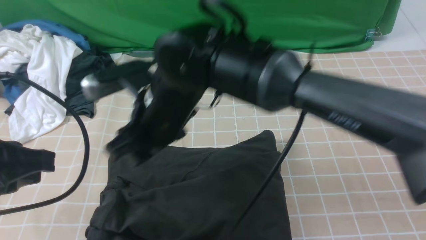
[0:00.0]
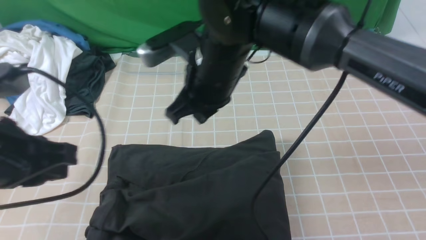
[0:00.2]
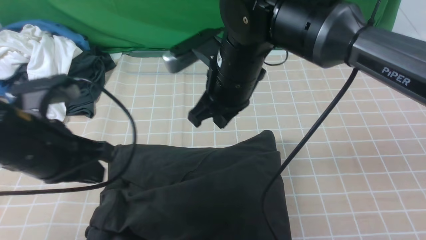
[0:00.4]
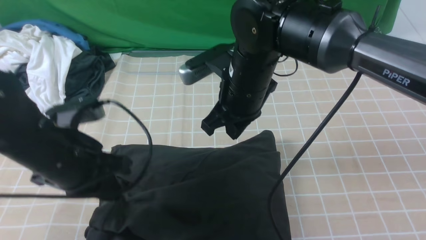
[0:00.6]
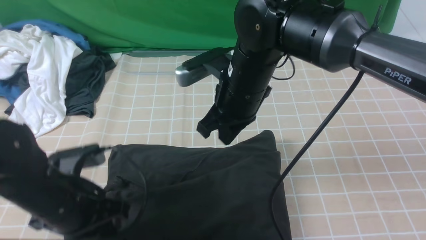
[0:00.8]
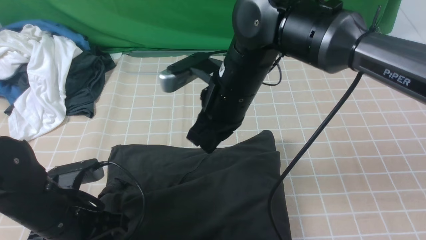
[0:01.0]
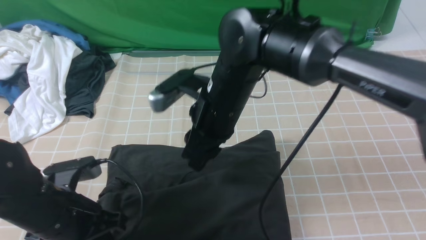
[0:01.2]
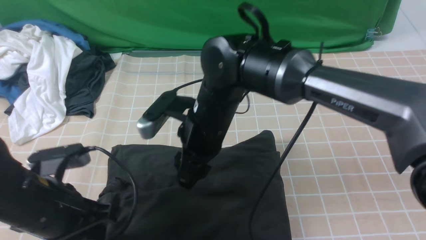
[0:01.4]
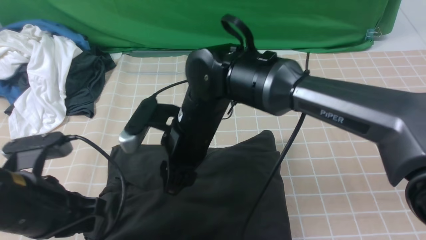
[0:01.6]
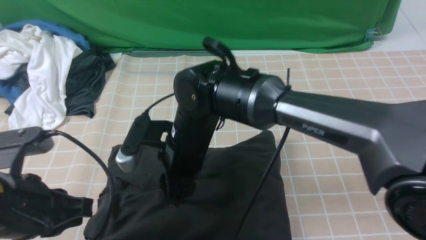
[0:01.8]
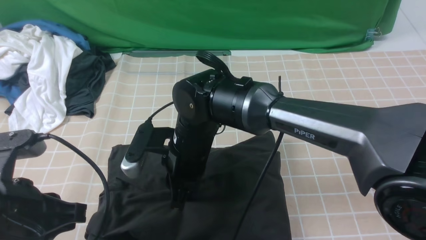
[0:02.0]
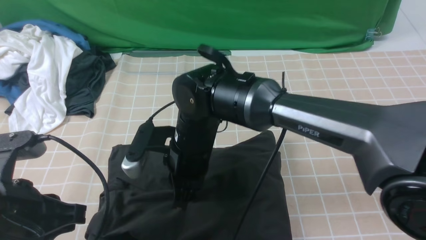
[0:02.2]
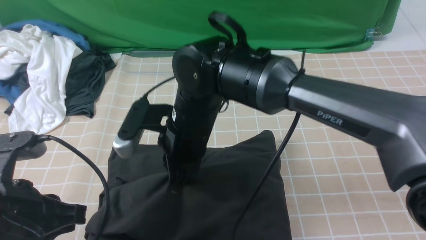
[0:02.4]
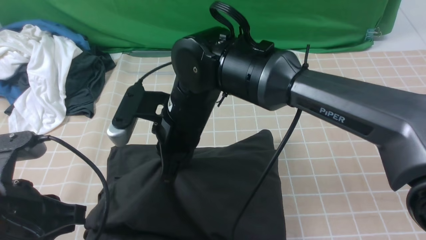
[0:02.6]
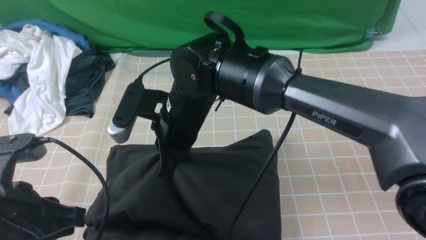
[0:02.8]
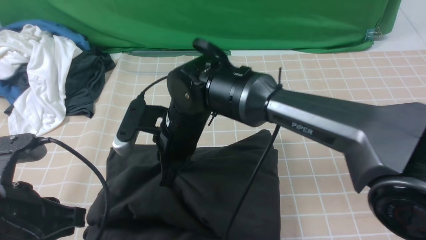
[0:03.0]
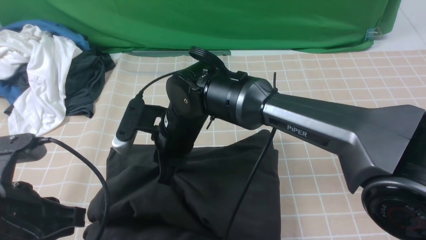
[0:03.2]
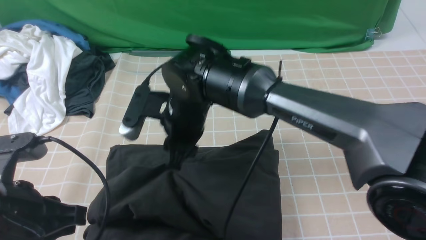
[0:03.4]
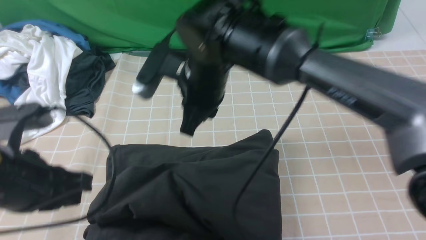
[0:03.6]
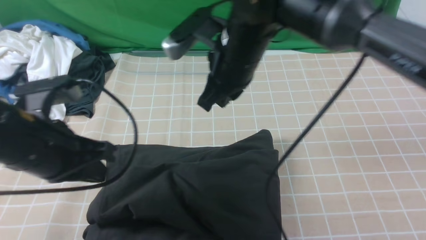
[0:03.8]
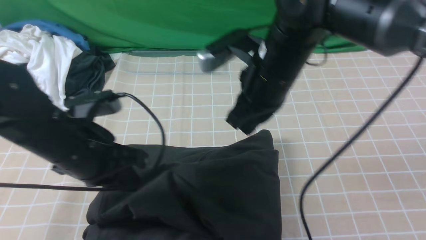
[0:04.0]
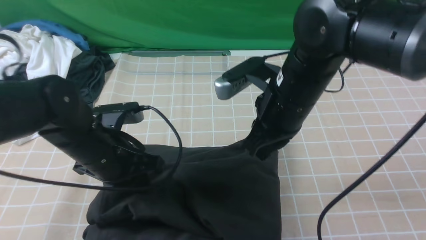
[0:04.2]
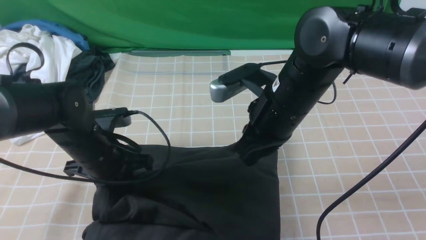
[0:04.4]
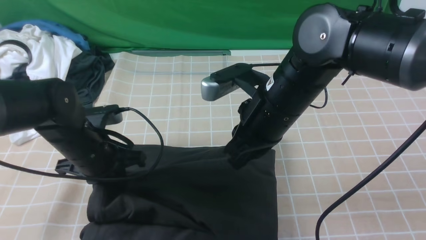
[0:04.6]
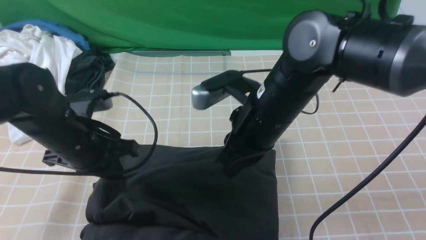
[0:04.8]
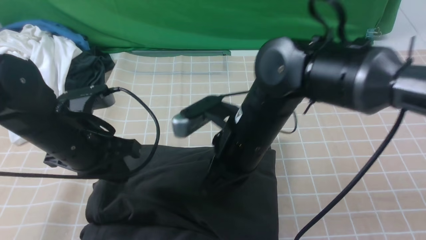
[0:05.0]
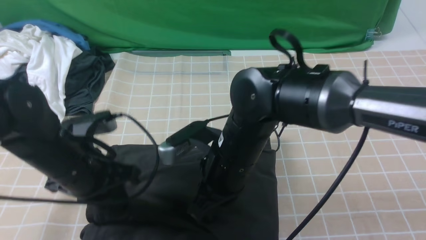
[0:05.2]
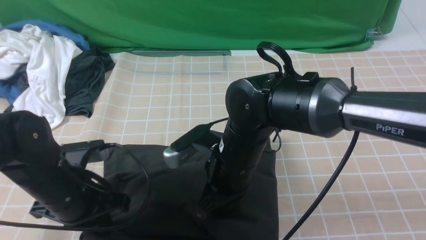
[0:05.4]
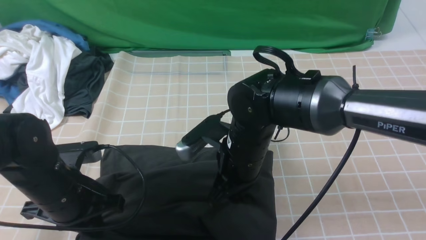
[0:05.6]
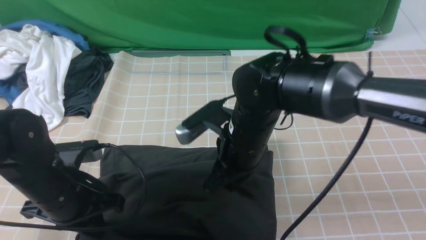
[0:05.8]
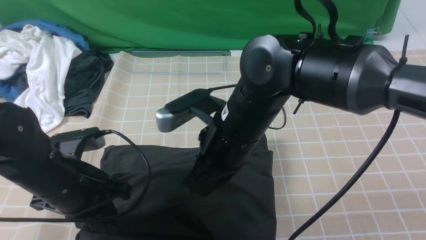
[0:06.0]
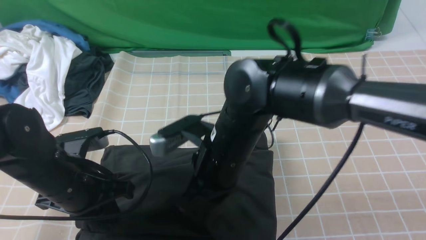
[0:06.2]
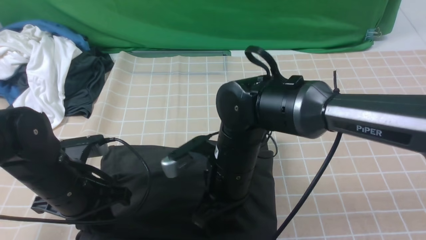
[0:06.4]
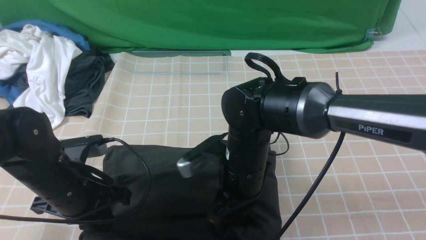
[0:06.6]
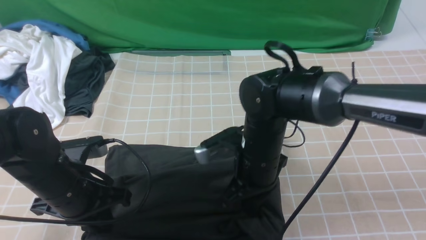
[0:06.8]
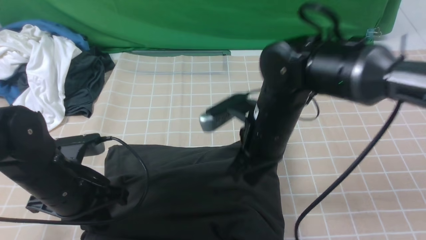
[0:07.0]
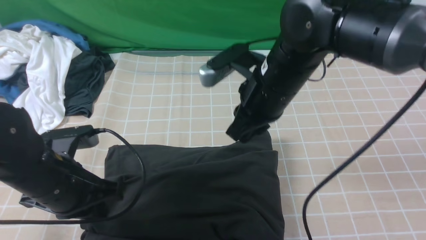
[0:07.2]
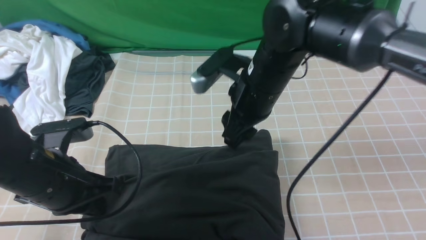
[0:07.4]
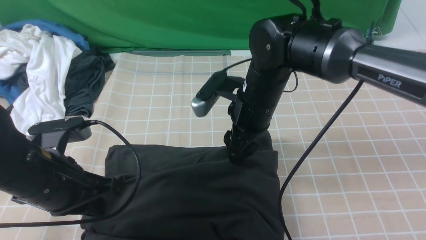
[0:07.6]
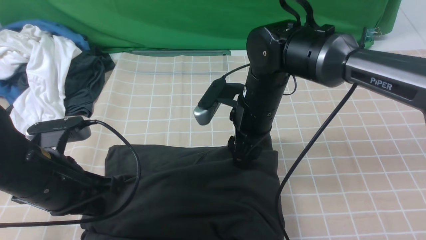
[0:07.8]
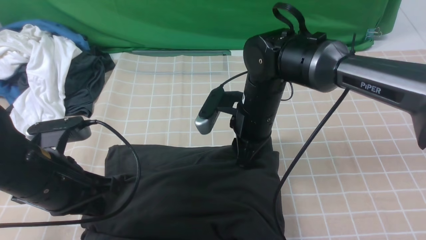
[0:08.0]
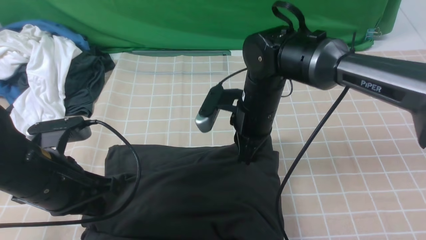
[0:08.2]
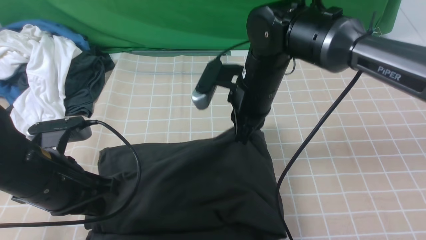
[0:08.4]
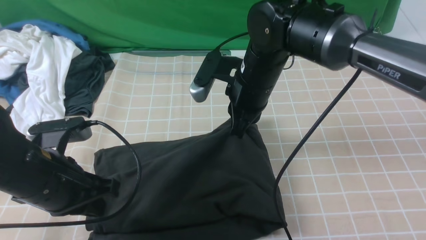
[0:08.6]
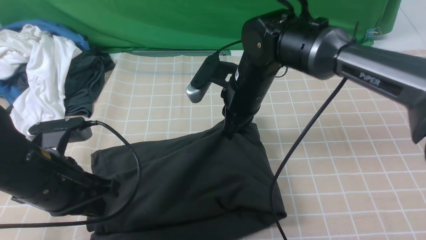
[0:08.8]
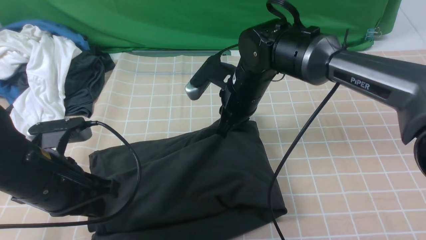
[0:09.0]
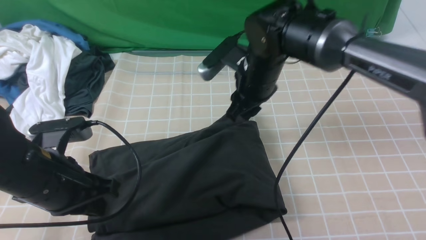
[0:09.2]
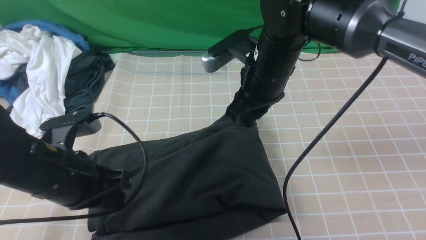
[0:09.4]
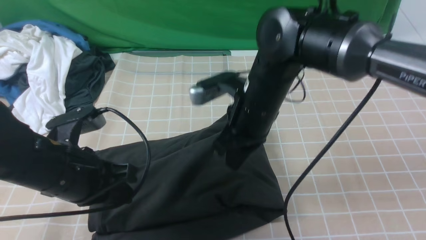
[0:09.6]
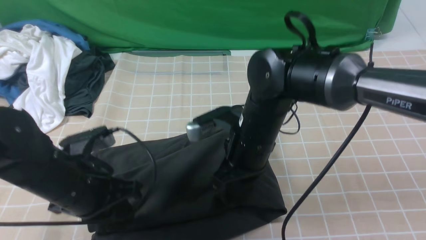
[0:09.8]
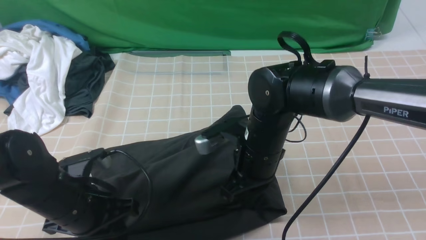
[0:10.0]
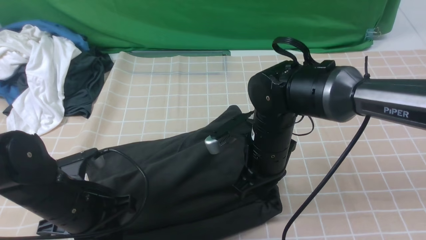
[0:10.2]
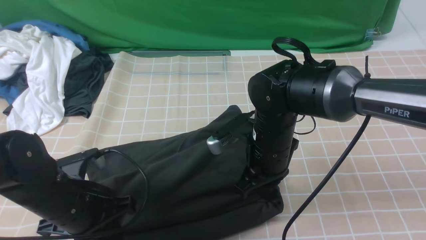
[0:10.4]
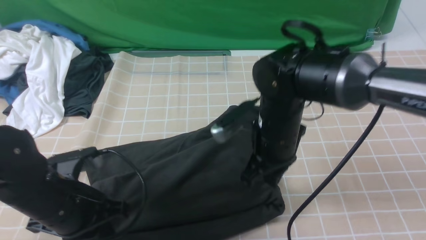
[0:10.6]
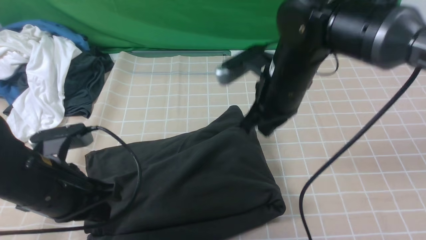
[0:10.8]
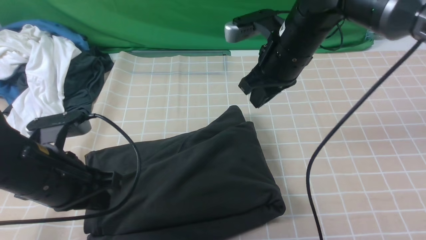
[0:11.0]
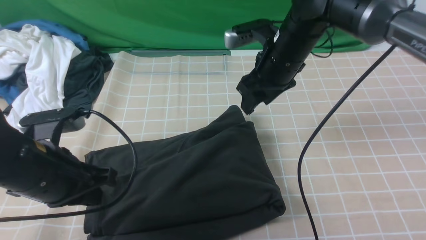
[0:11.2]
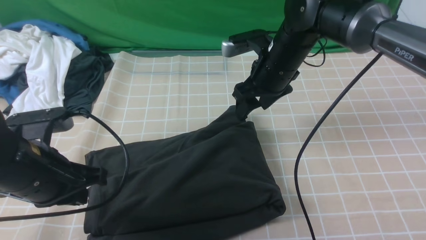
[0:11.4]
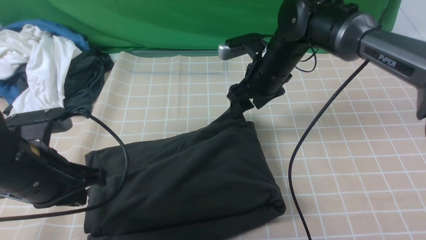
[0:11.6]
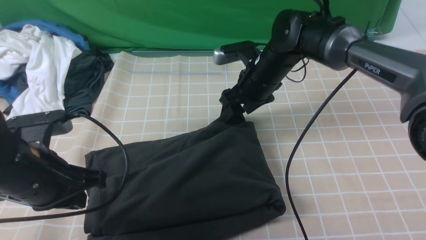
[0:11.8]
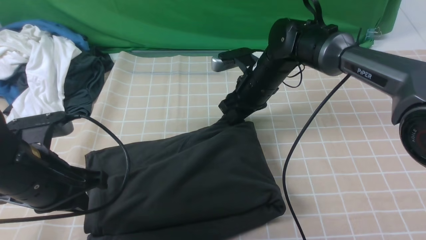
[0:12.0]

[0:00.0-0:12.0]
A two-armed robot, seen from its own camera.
0:00.0 to 0:01.6: Both grippers move downward, approximately 10 cm. The right gripper goes to the right and returns, some 10 cm each way, and closes, then reopens.
0:01.6 to 0:03.0: The right gripper closes.
0:03.0 to 0:04.4: The right gripper goes roughly 15 cm to the right and upward. The left gripper goes approximately 15 cm forward and downward.
0:04.4 to 0:06.0: The left gripper travels backward by roughly 5 cm. The right gripper heads to the left, covering some 5 cm.
0:06.0 to 0:07.6: The right gripper heads forward, covering approximately 10 cm, and opens up.
0:07.6 to 0:09.0: The right gripper closes up.
0:09.0 to 0:10.4: The right gripper goes some 10 cm backward. Meanwhile the left gripper shifts approximately 5 cm downward.
0:10.4 to 0:12.0: The right gripper goes about 15 cm forward, and opens; the left gripper goes approximately 5 cm upward.

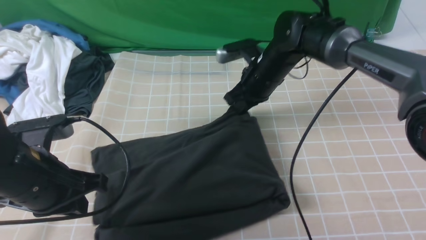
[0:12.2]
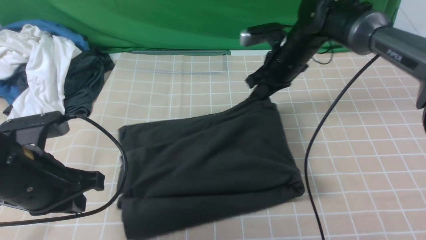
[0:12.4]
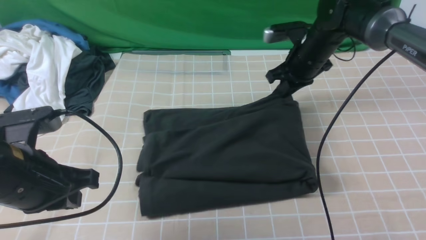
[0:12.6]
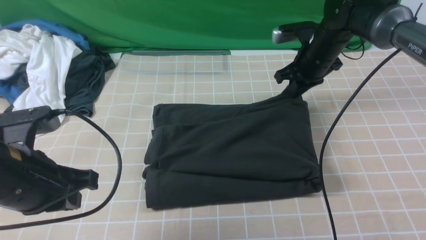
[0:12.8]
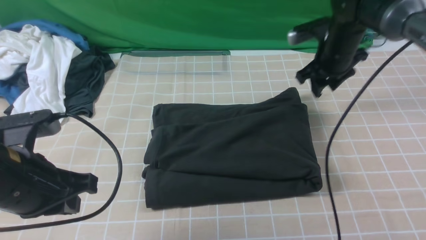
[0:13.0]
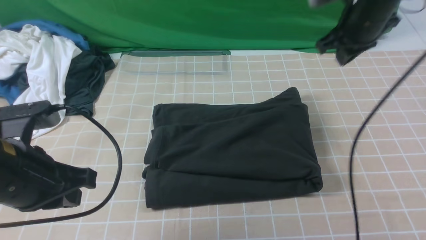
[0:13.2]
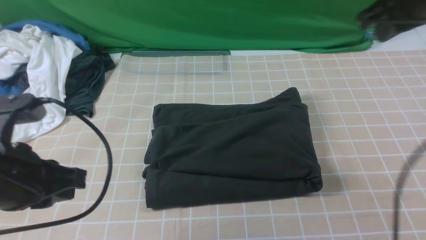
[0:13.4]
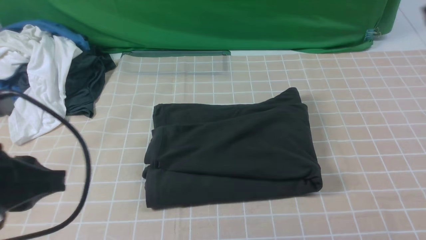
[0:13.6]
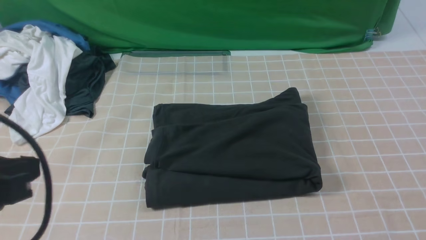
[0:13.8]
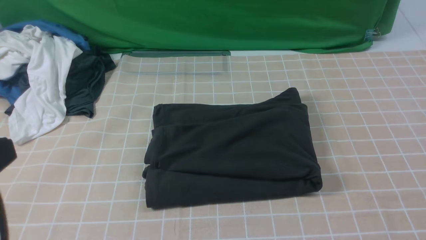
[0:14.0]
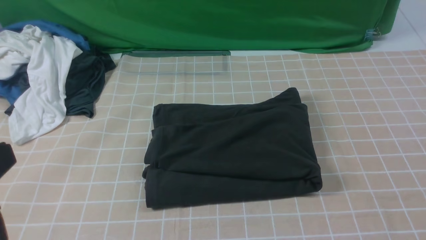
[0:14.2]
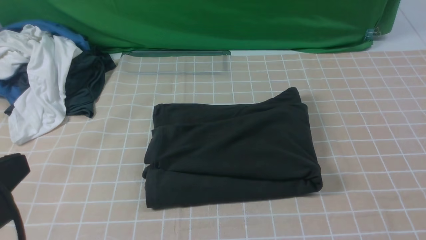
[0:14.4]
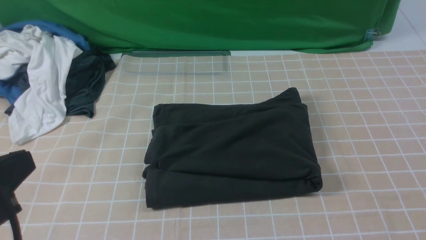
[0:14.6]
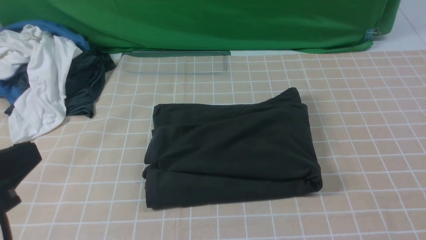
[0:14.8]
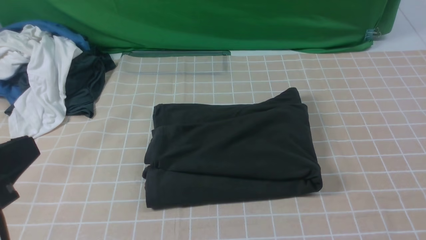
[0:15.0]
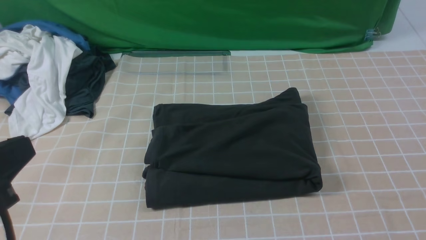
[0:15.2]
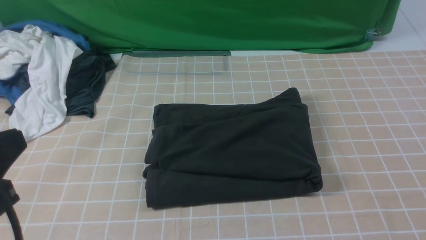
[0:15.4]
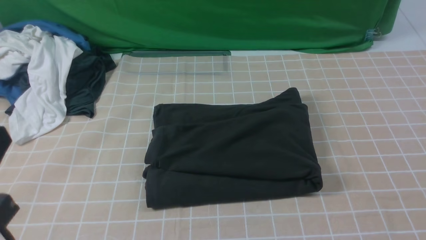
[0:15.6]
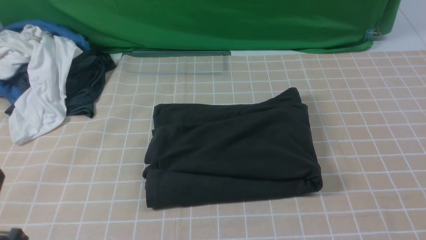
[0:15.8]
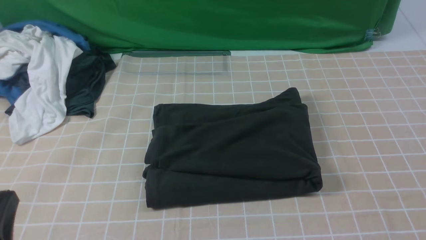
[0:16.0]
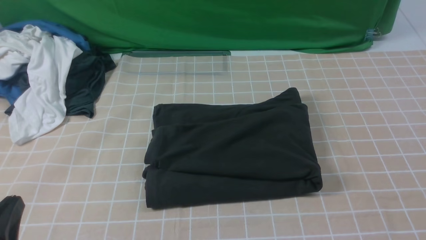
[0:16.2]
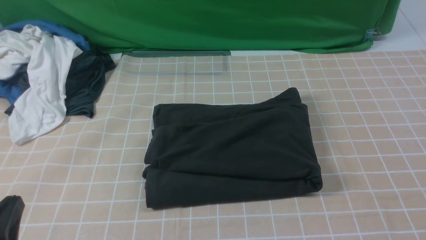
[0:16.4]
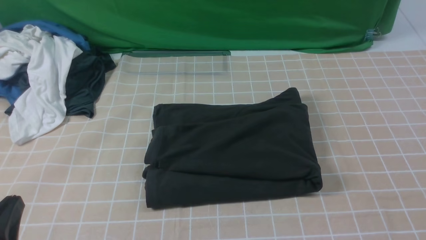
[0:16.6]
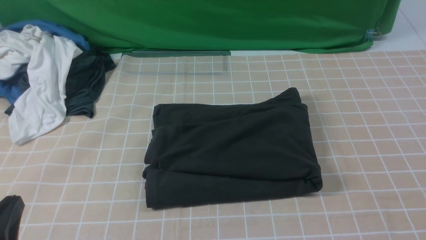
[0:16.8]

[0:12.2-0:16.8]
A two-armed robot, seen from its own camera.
0:12.2 to 0:13.8: The left gripper travels upward and backward by some 15 cm; the right gripper is displaced backward, upward and to the right by approximately 40 cm.
0:15.2 to 0:16.8: The left gripper heads downward, covering some 15 cm.
